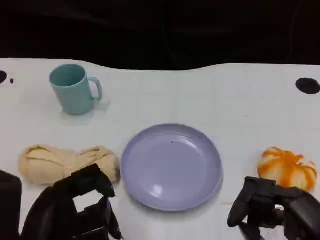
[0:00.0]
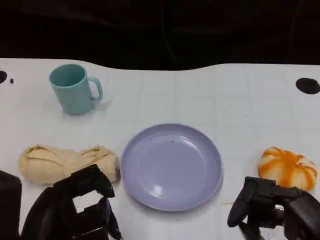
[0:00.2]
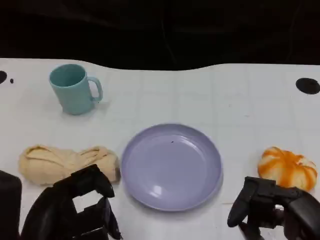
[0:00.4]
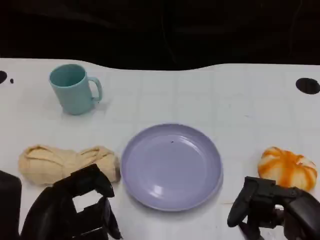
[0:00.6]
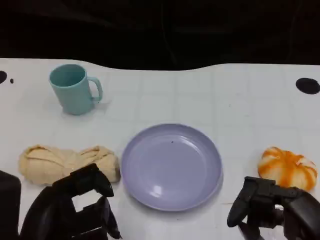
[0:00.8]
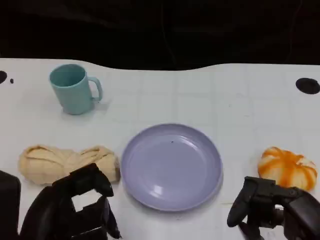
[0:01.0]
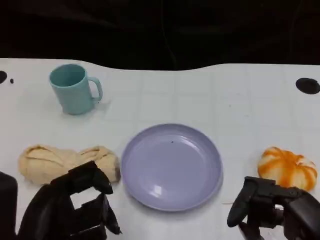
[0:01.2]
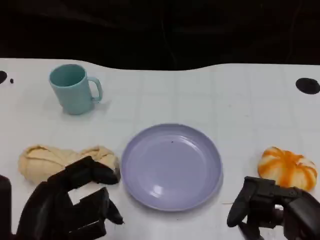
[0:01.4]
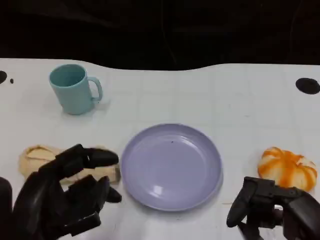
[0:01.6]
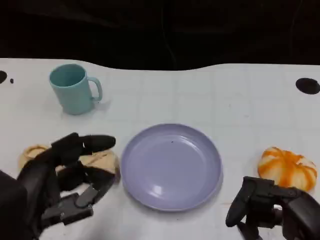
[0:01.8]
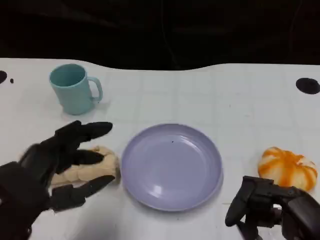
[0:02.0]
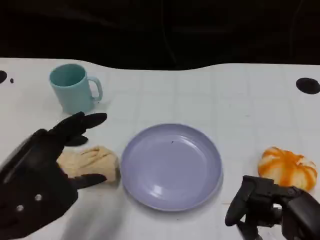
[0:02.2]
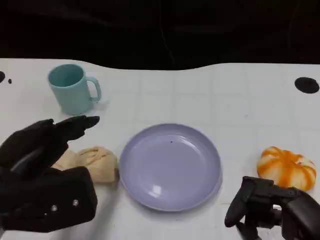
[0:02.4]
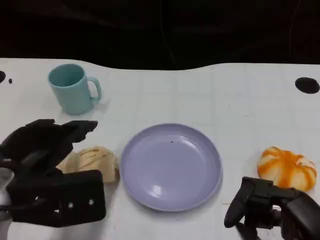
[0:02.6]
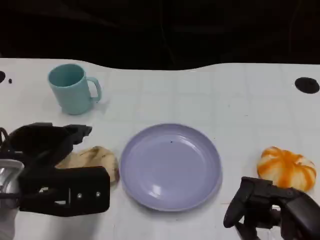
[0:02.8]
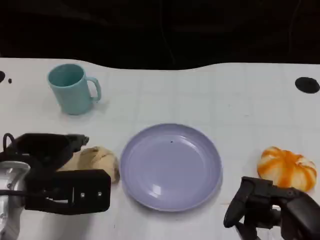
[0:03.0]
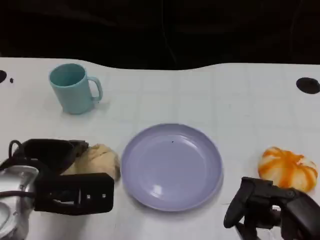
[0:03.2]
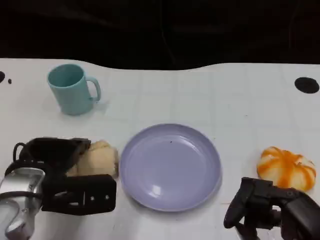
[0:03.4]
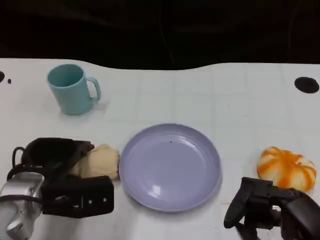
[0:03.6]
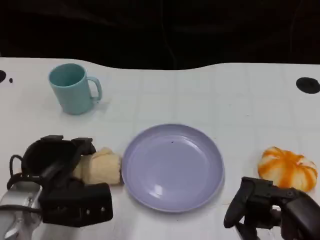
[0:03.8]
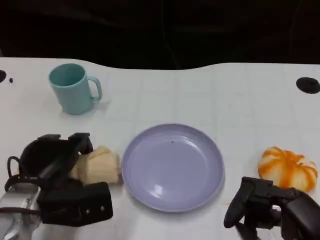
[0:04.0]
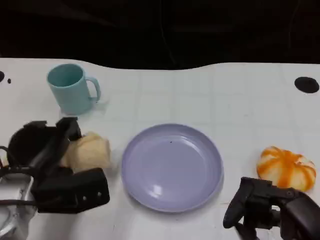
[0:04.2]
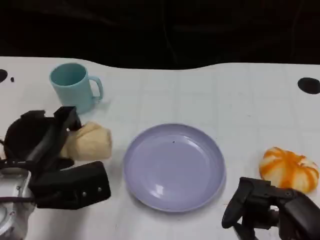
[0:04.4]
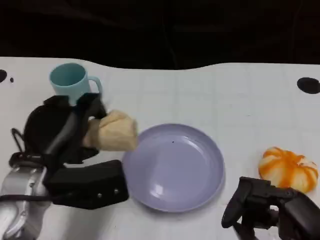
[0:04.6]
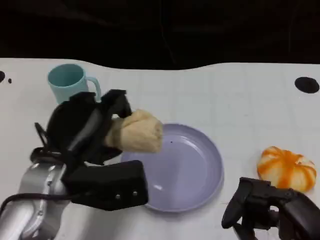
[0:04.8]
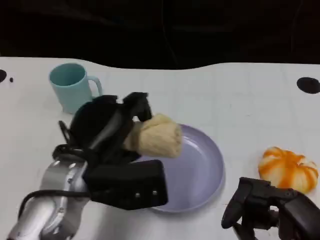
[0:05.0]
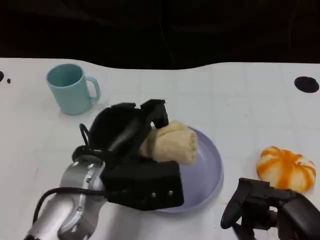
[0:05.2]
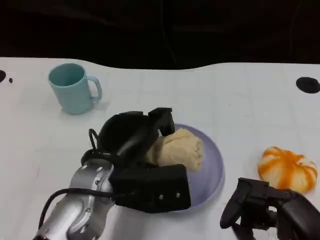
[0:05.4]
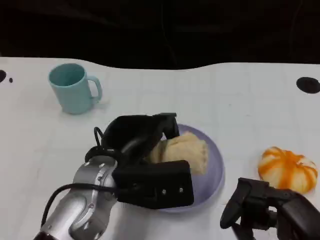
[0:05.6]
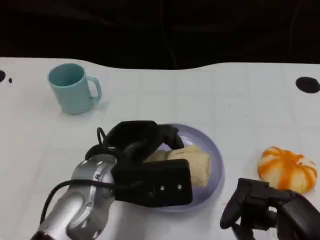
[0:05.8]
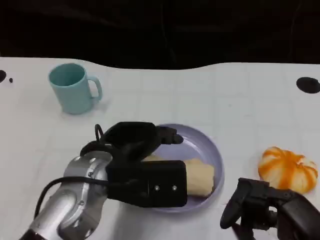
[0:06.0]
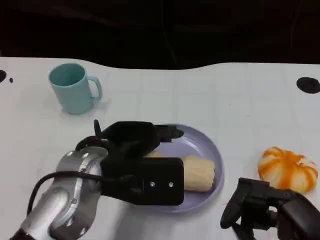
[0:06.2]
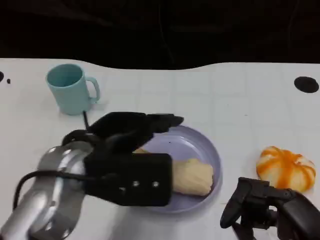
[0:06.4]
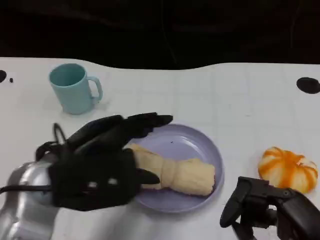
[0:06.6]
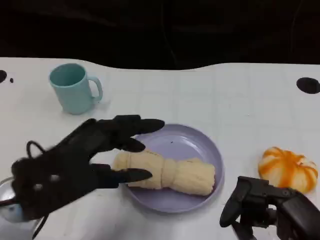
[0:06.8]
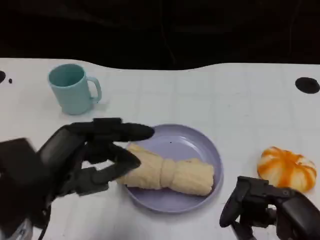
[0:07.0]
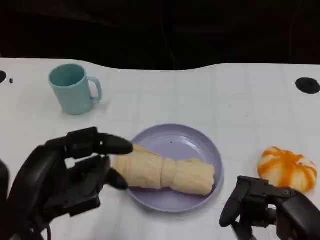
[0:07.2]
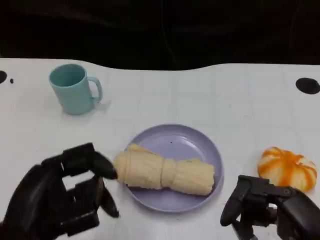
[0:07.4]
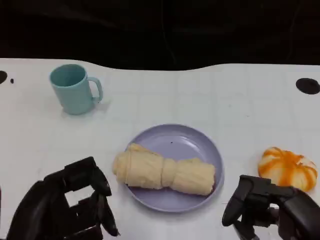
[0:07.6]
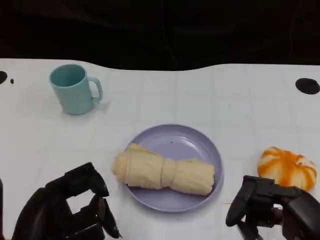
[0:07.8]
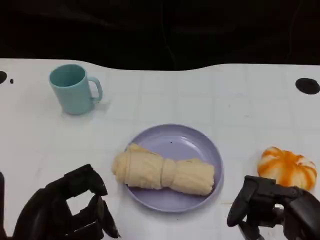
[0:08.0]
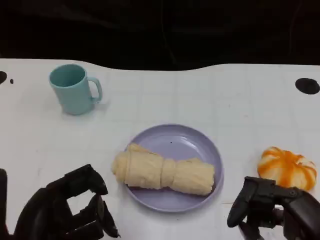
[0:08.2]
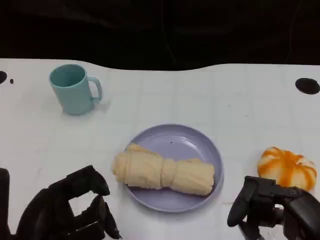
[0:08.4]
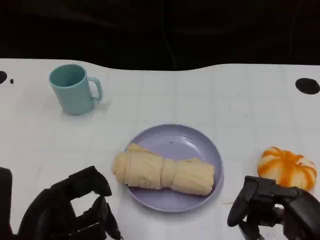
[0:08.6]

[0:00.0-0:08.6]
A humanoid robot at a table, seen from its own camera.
Task of the whole recording: Grasp the towel on the left side of the plate with the left hand and place it into the plate.
0:00.0 to 0:01.4: The hands stay close to where they were, moving slightly.
0:01.4 to 0:02.8: The left hand shifts about 10 cm forward.
0:02.8 to 0:04.4: The left hand heads downward, covering about 5 cm.
0:04.4 to 0:05.8: The left hand moves to the right, about 10 cm.
0:05.8 to 0:07.2: The left hand is displaced backward and to the left by roughly 15 cm.

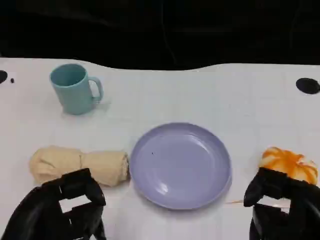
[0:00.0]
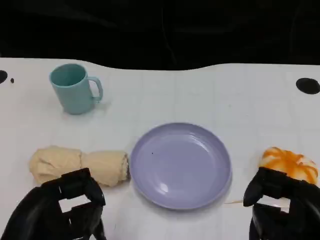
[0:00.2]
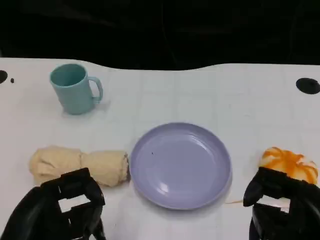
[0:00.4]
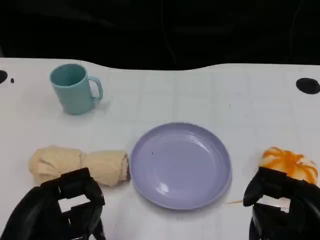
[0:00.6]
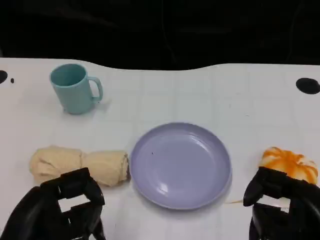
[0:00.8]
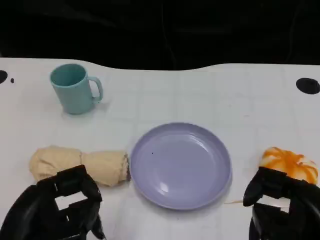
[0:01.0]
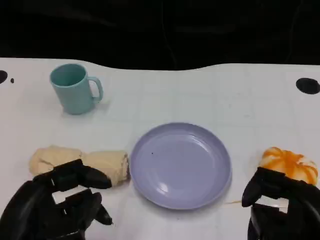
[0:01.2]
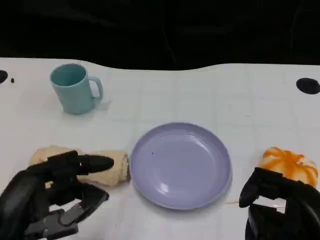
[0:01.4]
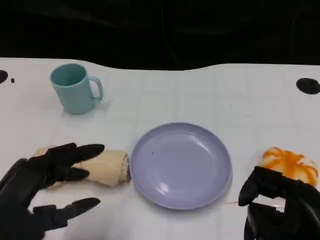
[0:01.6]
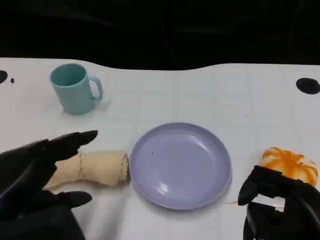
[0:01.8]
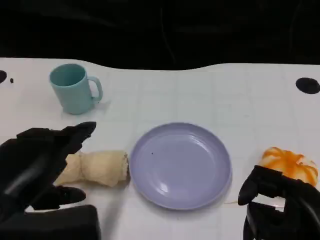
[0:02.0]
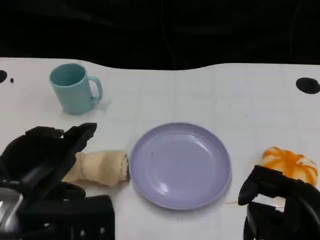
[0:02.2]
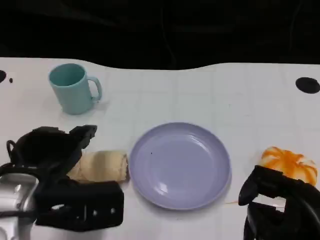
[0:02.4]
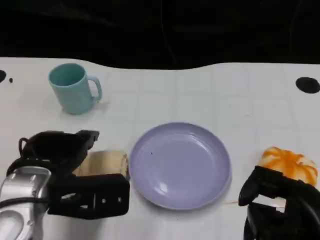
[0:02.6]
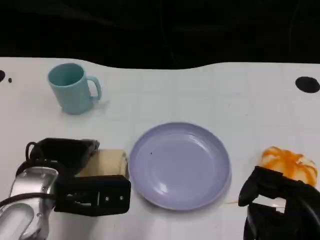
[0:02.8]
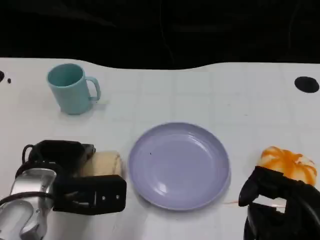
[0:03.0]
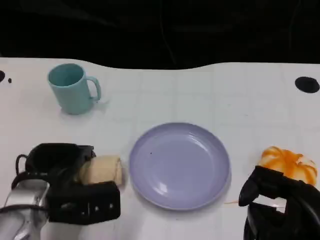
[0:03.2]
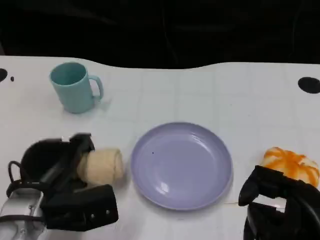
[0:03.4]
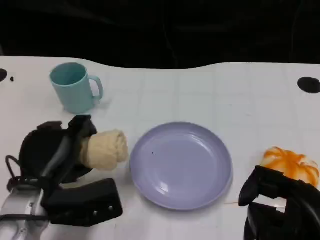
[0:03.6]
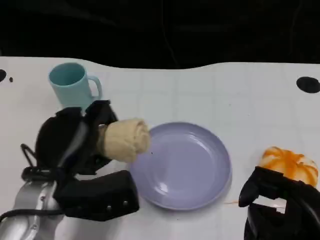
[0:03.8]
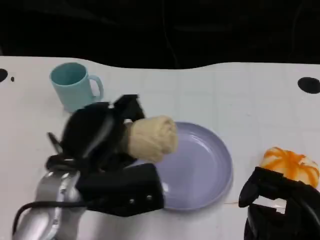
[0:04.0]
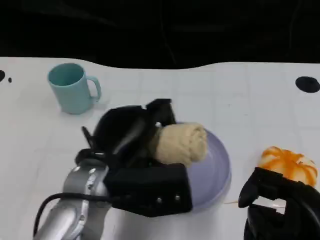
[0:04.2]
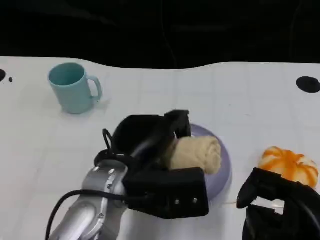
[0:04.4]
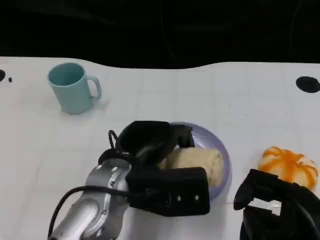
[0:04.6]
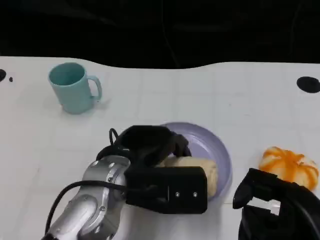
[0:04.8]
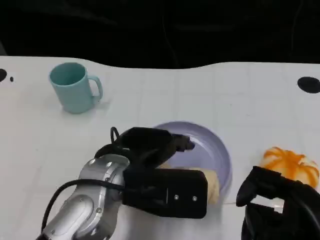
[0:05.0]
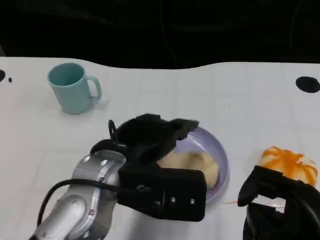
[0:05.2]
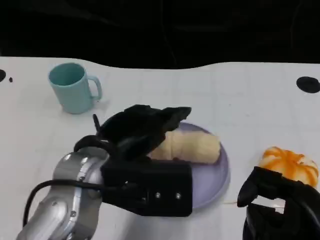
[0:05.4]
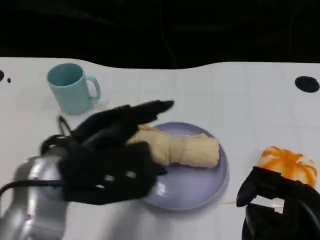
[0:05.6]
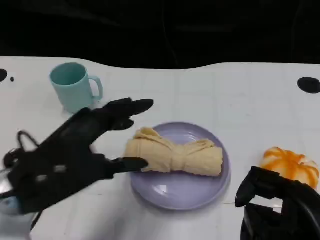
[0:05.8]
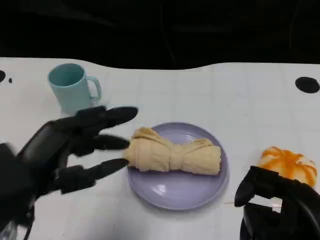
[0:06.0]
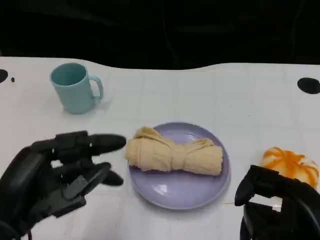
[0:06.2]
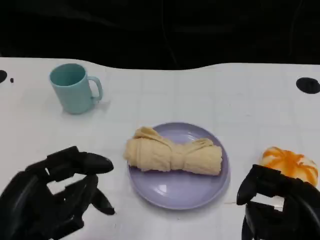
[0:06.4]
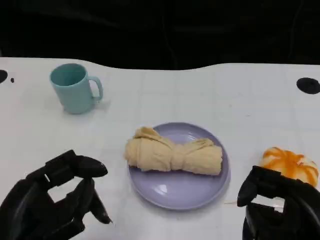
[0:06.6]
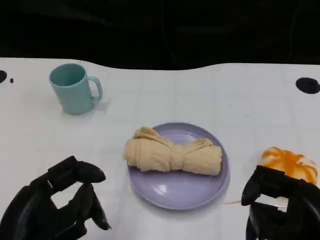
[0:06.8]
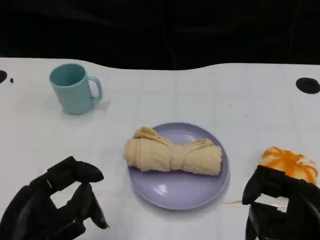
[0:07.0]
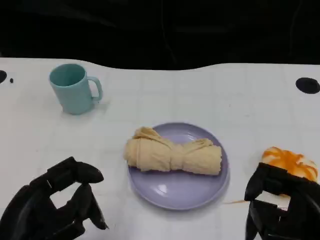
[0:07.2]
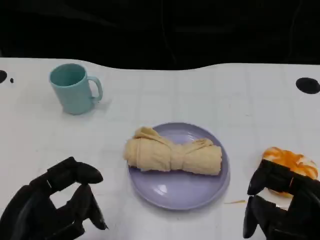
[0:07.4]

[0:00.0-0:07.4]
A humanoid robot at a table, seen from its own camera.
Task of the whole recording: Grasp the towel on the left side of the plate with the left hand and place it into the plate.
0:01.4 to 0:03.0: The left hand shifts some 15 cm forward and downward.
0:03.0 to 0:04.4: The left hand is displaced to the right and upward by some 10 cm.
0:04.4 to 0:06.0: The left hand goes roughly 15 cm to the left and backward.
0:06.0 to 0:07.4: The left hand ends up roughly 5 cm from where it was.

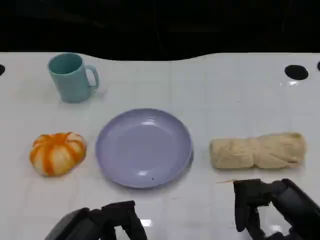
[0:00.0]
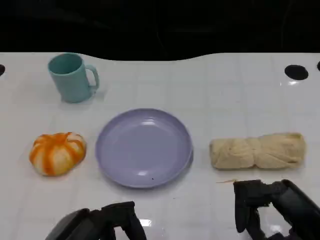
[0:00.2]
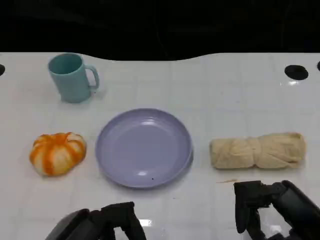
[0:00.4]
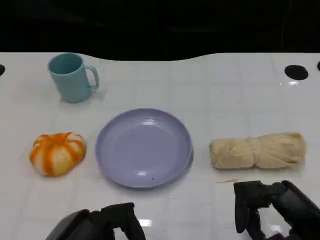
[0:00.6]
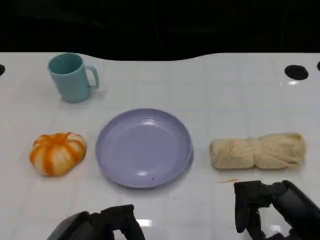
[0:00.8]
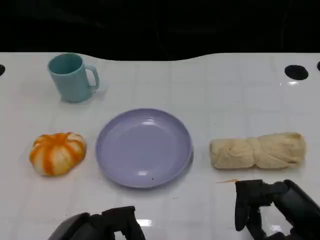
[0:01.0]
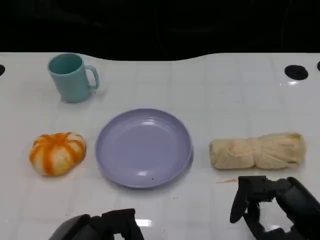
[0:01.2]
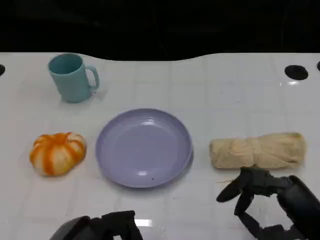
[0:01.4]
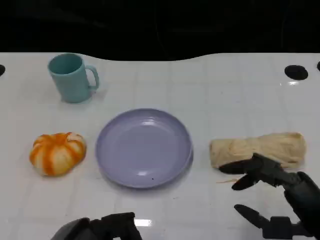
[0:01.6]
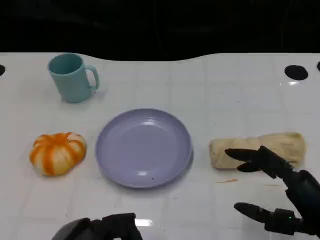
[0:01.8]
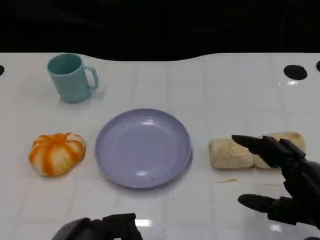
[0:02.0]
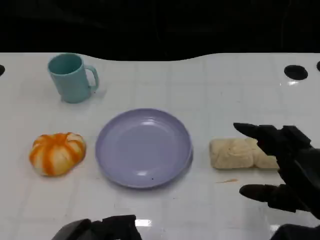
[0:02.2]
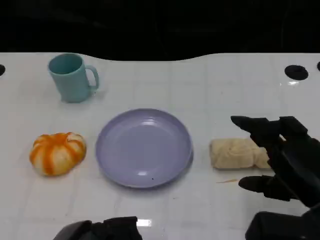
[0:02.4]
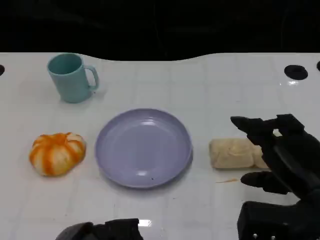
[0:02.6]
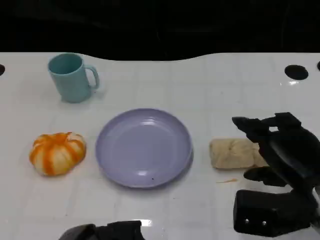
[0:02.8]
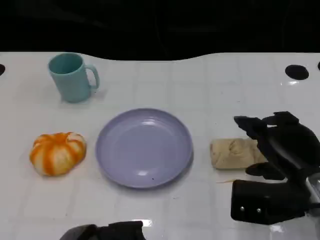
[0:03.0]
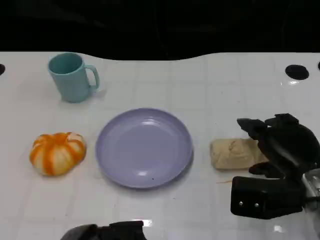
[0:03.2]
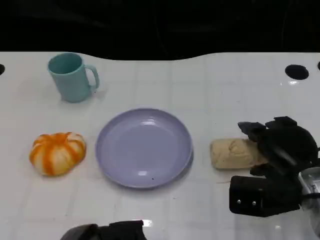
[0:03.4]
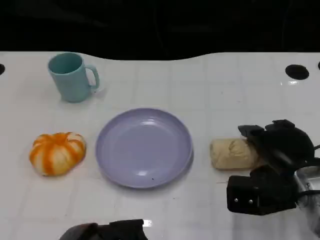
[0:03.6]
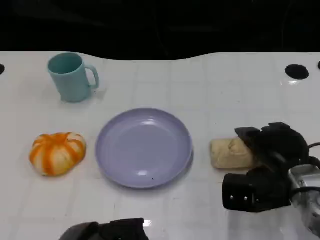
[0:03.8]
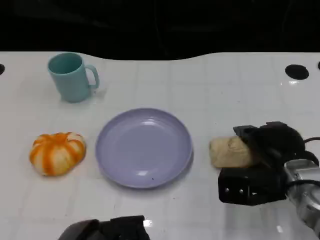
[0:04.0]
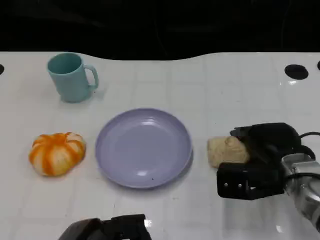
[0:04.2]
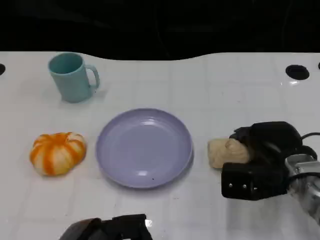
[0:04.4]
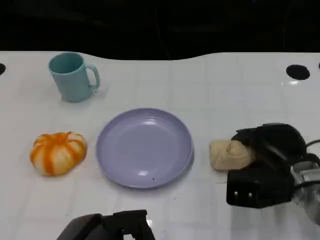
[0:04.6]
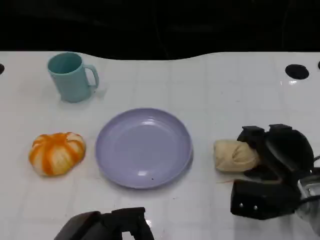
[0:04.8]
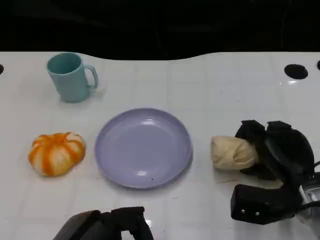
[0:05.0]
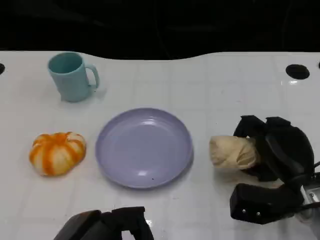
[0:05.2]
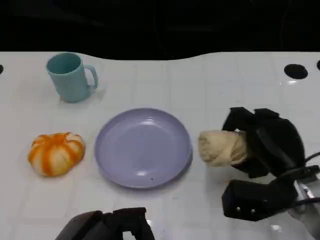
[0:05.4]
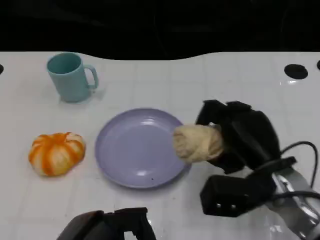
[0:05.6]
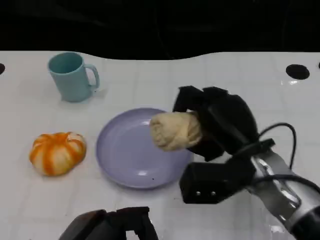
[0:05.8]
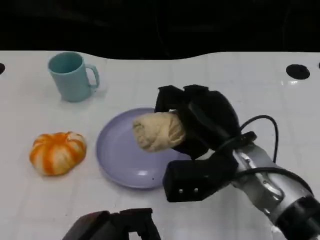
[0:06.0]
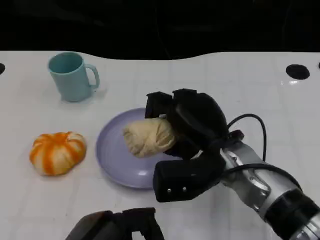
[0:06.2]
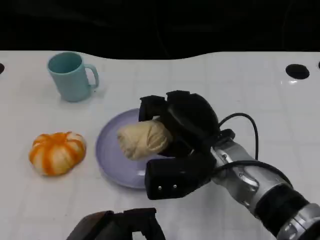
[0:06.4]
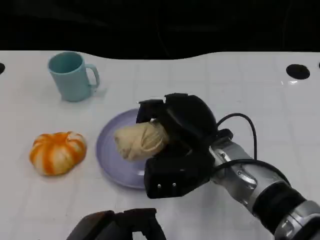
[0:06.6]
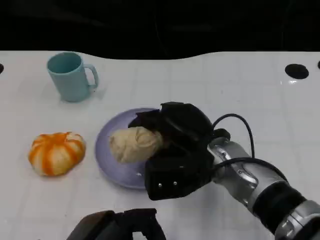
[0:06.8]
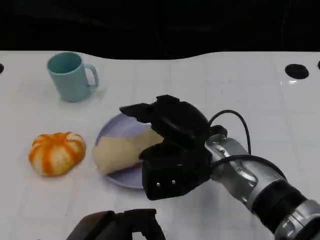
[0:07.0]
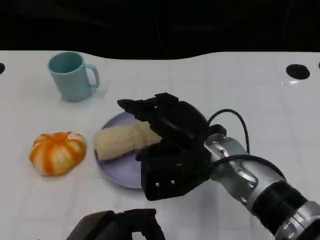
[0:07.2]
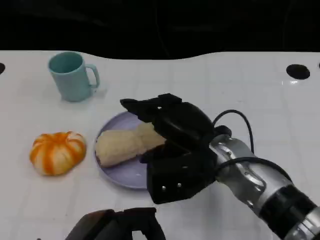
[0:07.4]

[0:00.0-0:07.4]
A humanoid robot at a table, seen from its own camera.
Task of the whole recording: Grasp the towel on the left side of the plate with the left hand and place it into the plate.
0:00.0 to 0:01.4: The hands move only a little.
0:01.4 to 0:03.0: The right hand shifts some 10 cm forward.
0:03.0 to 0:04.4: The right hand shifts by roughly 5 cm.
0:04.4 to 0:06.0: The right hand travels to the left and upward by some 10 cm.
0:06.0 to 0:07.4: There are only small adjustments of the hands.
